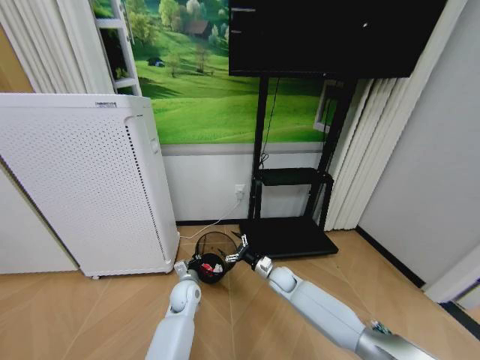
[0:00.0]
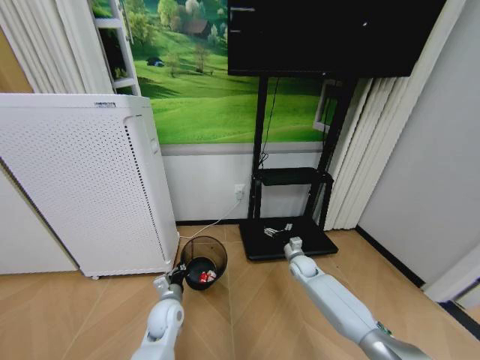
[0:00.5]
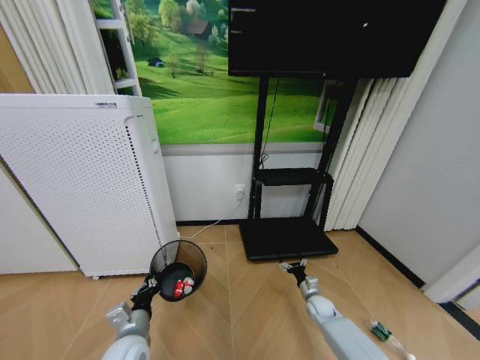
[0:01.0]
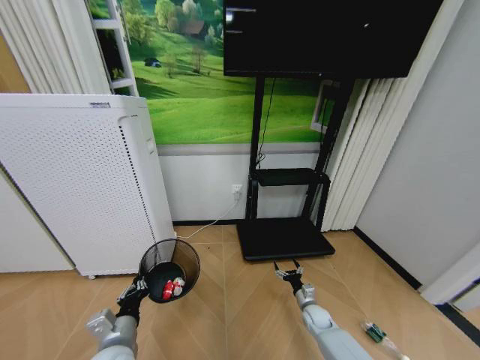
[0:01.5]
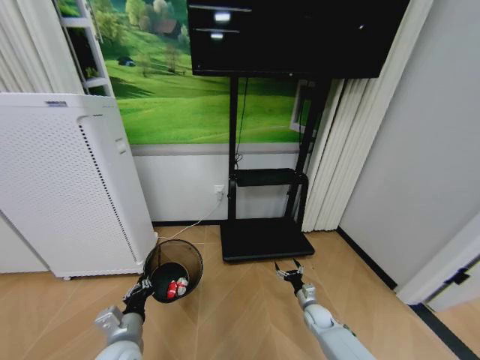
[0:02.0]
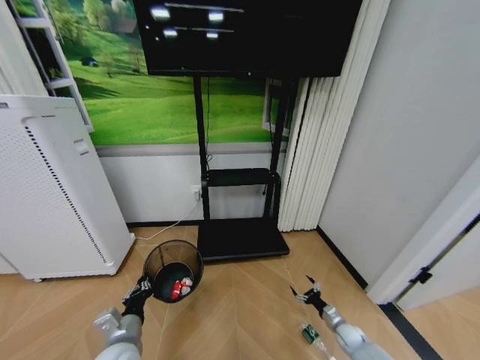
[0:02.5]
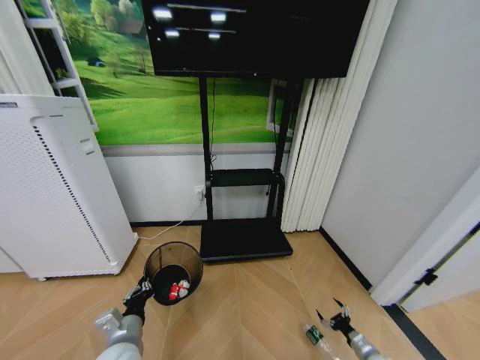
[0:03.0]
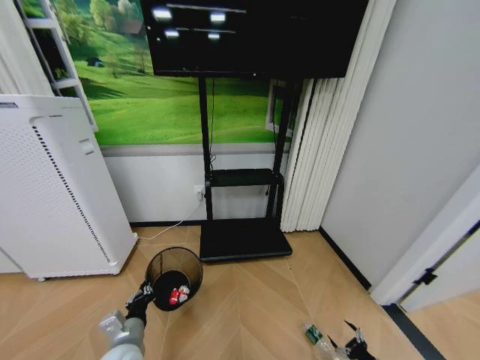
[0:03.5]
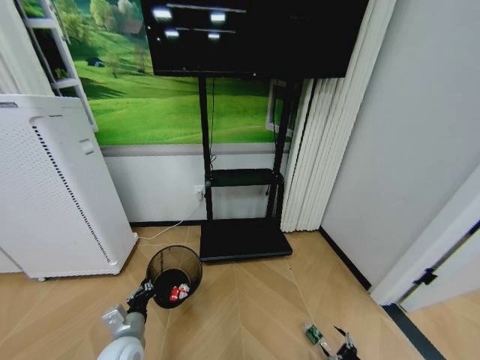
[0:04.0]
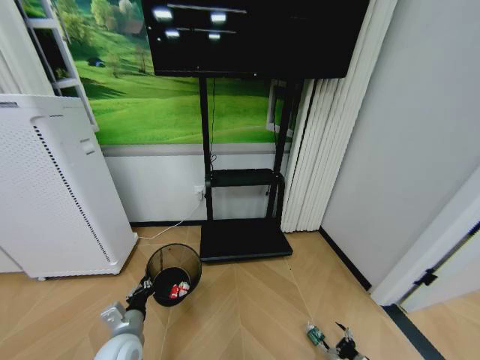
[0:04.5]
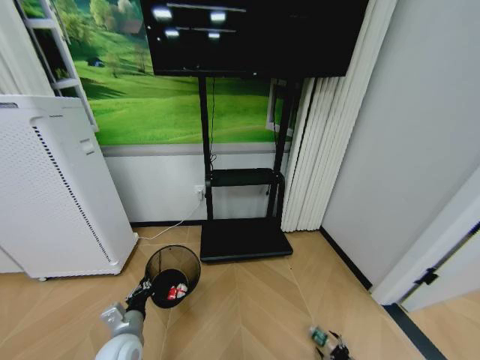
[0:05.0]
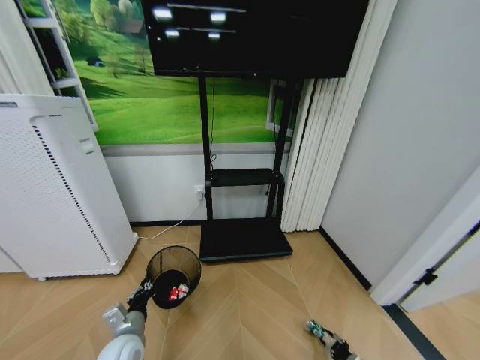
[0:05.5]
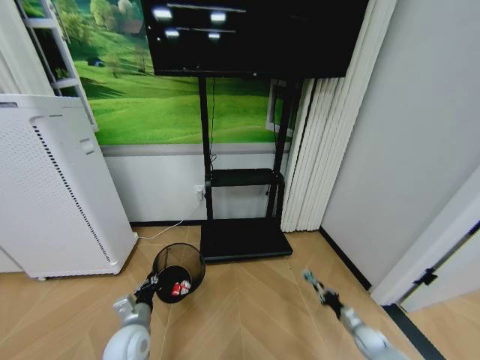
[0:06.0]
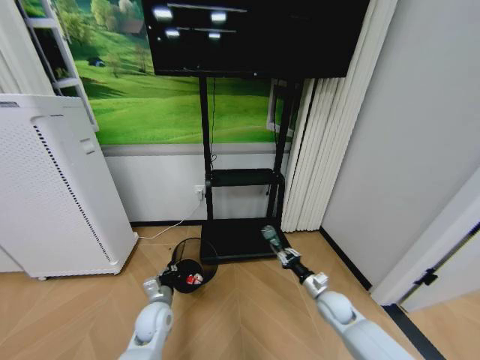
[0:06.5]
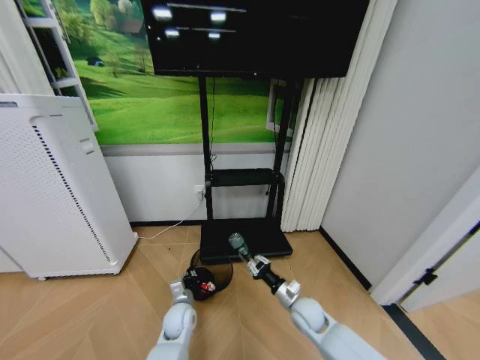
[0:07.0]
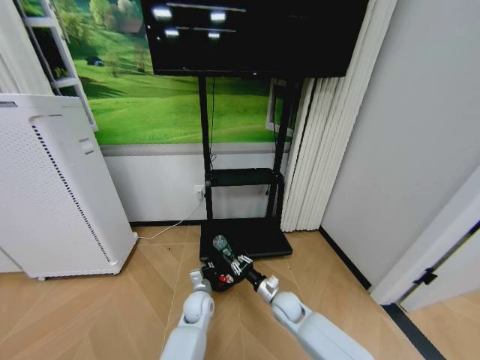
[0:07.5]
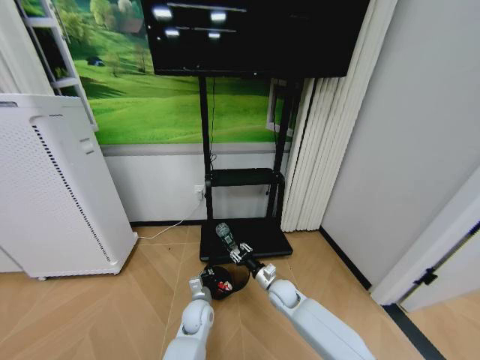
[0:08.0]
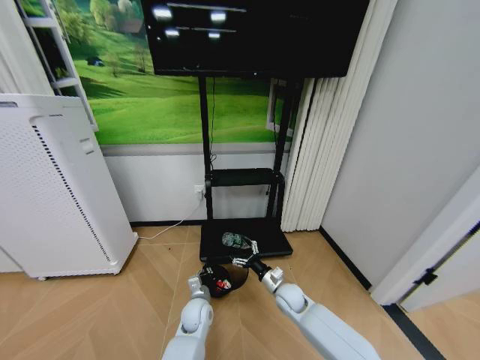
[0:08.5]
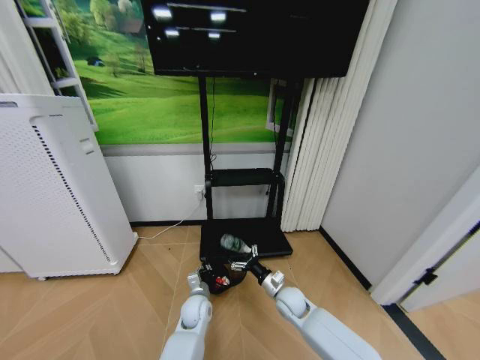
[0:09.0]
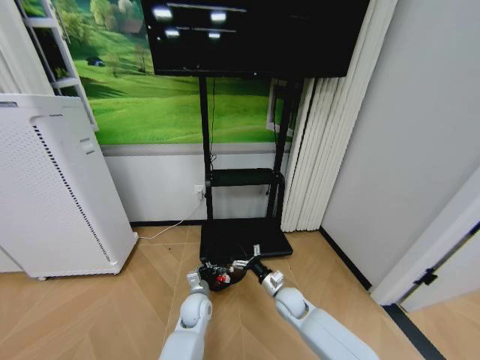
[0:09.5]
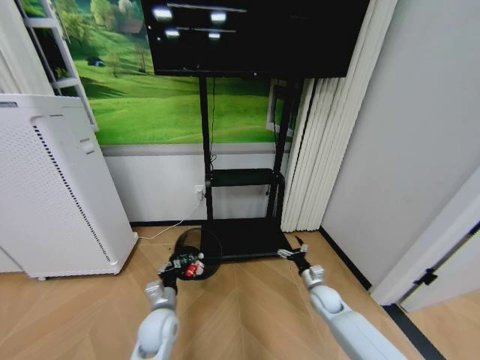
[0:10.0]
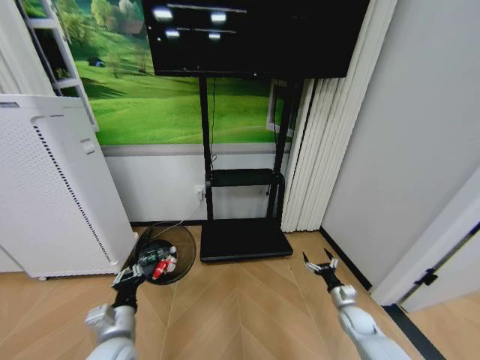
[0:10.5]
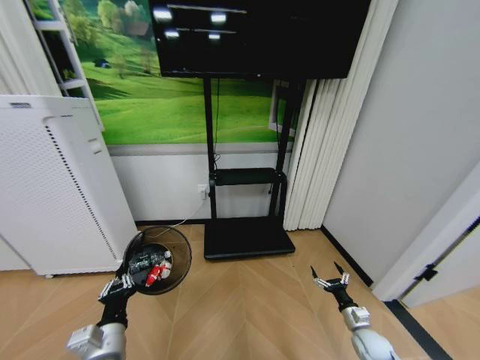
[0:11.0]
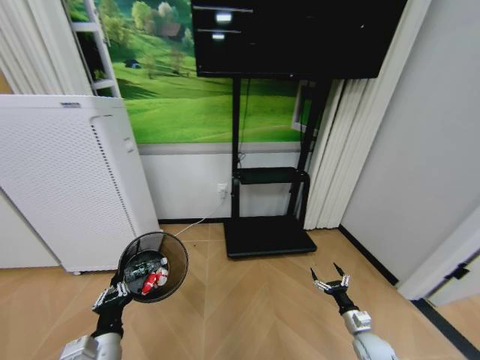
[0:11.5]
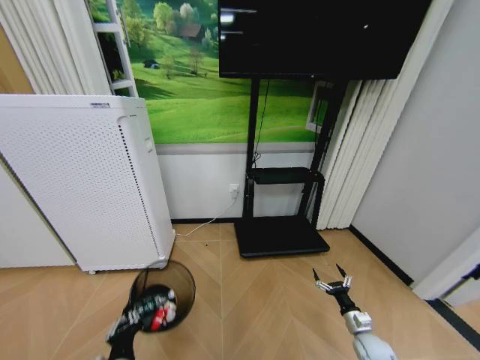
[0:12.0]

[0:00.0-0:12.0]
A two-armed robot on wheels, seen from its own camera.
Task of the whole recording: Pick up the trash bin and place the garbage on the floor into it.
0:00.0 to 0:02.0: The left gripper moves backward, to the left and upward, about 25 cm; the right gripper heads to the right, downward and backward, covering approximately 20 cm.
0:02.0 to 0:04.0: The right gripper goes roughly 30 cm backward and to the right.
0:04.0 to 0:06.0: The right gripper travels forward by some 15 cm, and closes its fingers.
0:06.0 to 0:08.0: The left gripper moves to the right, forward and downward, about 20 cm. Meanwhile the right gripper moves to the left and upward, approximately 35 cm.
0:08.0 to 0:10.0: The left gripper heads to the left, upward and backward, covering about 15 cm, while the right gripper shifts about 15 cm to the right, and opens up.
0:10.0 to 0:12.0: The right gripper is displaced to the right, backward and downward by roughly 20 cm; the left gripper is displaced backward by some 15 cm.

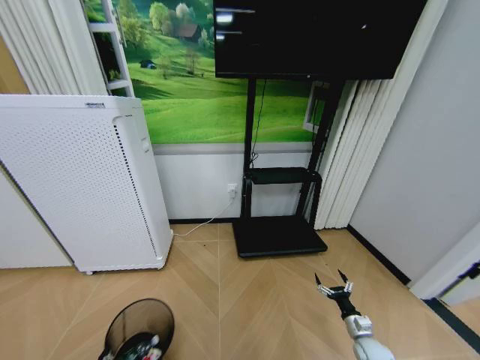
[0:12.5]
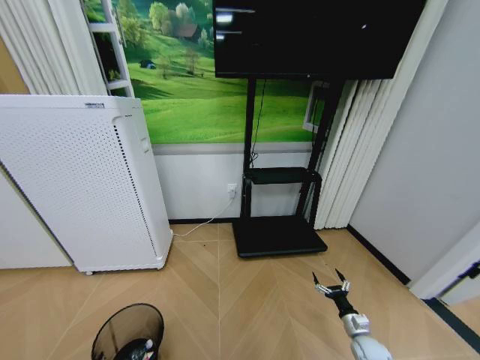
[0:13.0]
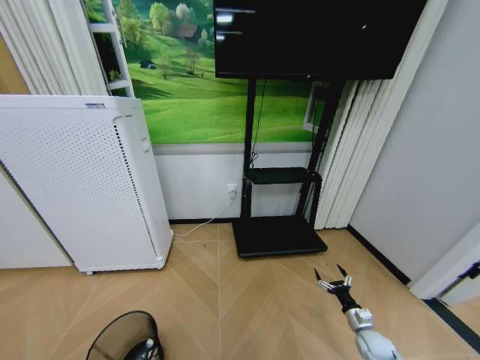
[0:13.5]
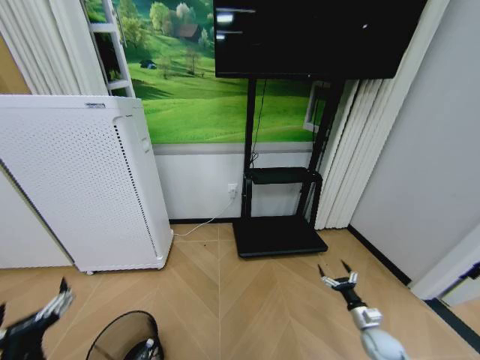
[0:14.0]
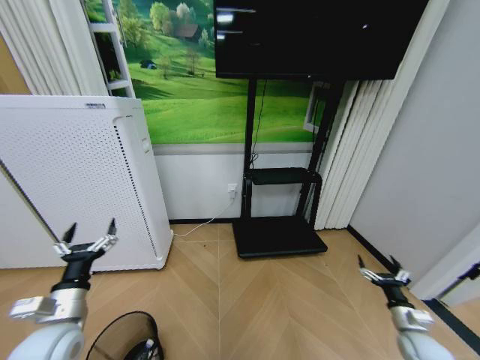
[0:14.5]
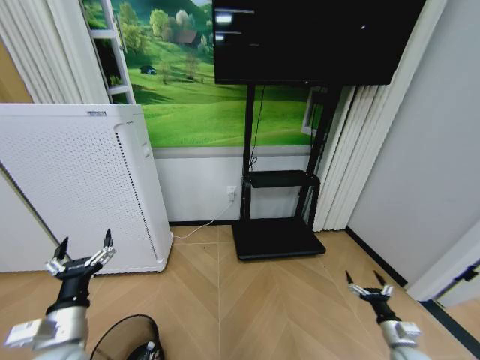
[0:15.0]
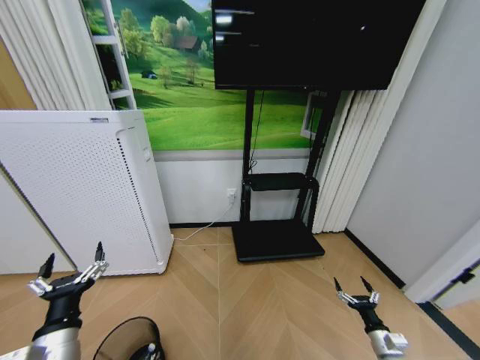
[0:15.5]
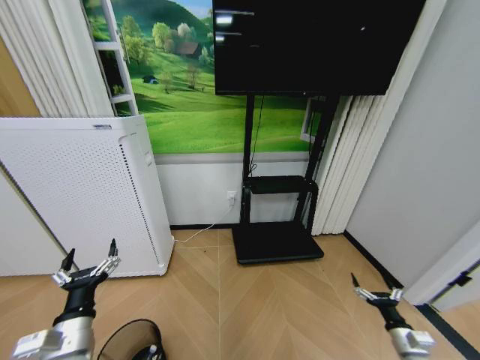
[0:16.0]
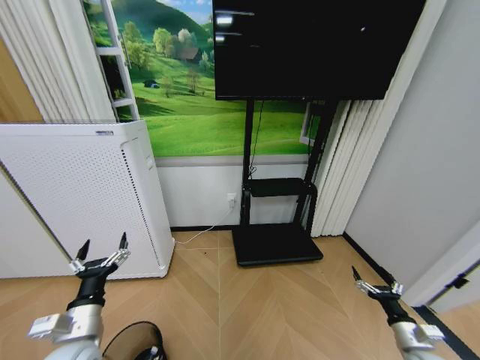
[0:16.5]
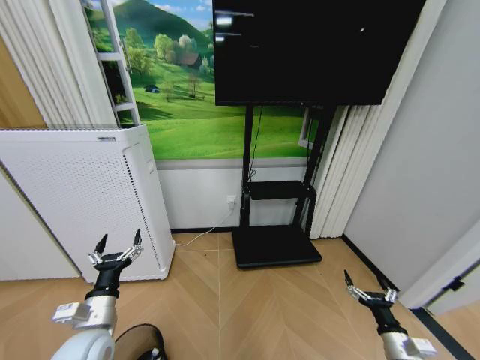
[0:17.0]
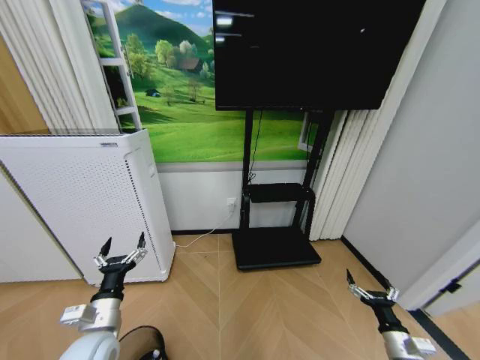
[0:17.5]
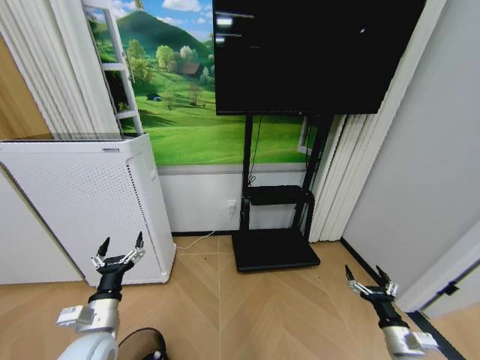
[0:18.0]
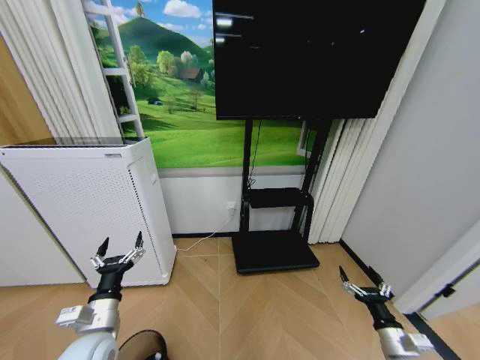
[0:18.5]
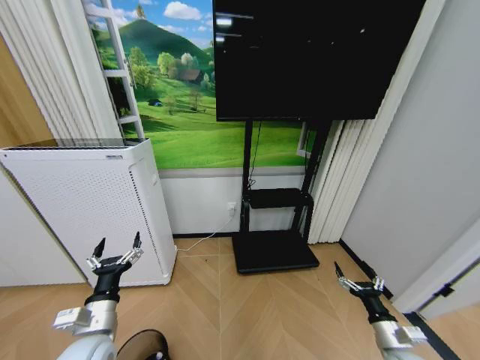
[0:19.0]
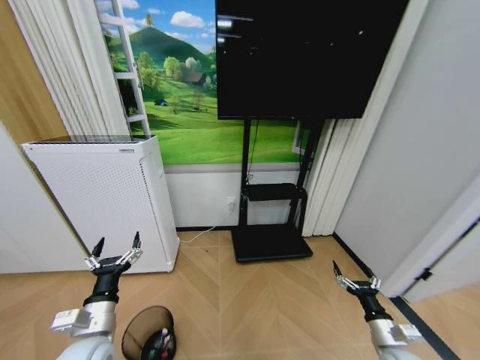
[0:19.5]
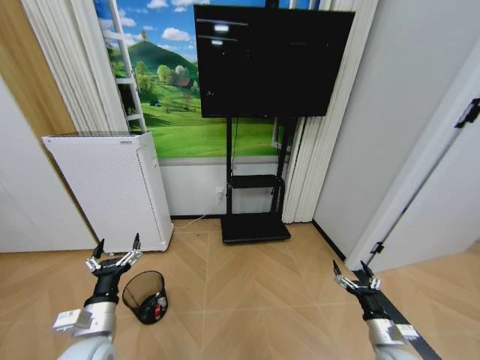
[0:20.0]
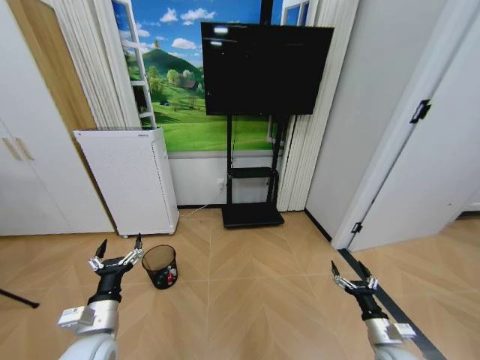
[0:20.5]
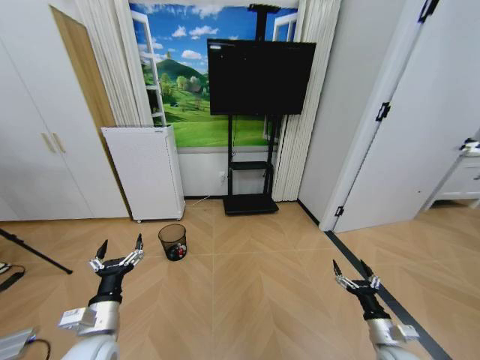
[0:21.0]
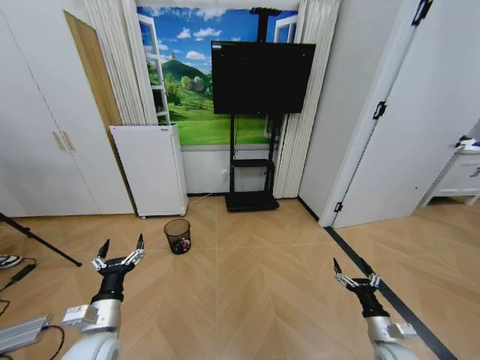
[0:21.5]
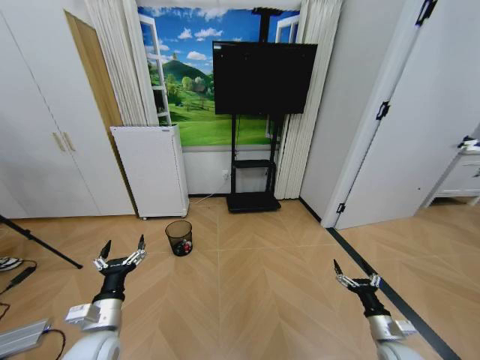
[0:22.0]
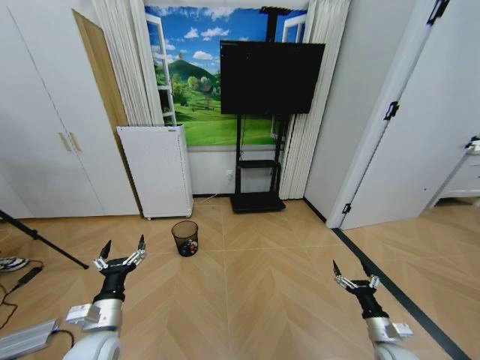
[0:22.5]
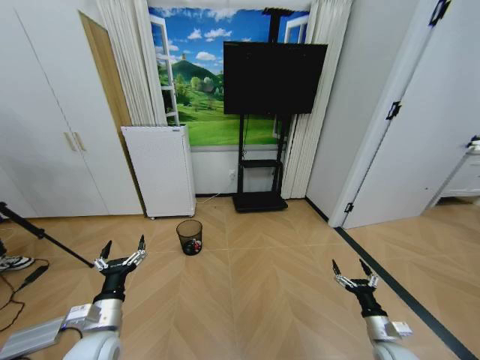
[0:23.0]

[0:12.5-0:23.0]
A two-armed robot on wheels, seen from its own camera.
Task of the whole recording: Pick up the trash bin and place the garbage on the floor into it.
0:12.5 to 0:14.5: The right gripper moves upward and to the right, about 15 cm. The left gripper travels upward and forward by some 20 cm, and opens its fingers.
0:16.5 to 0:19.0: The right gripper shifts approximately 5 cm to the left.

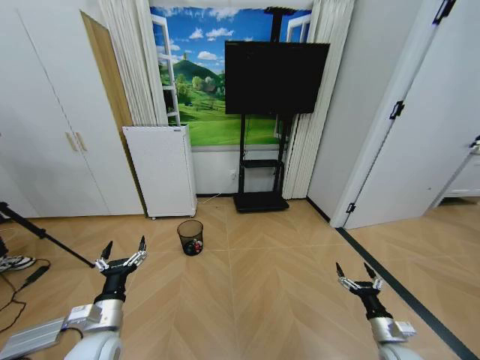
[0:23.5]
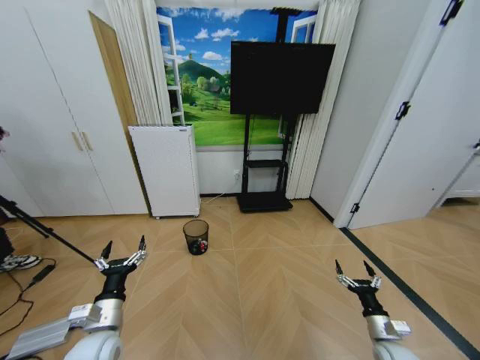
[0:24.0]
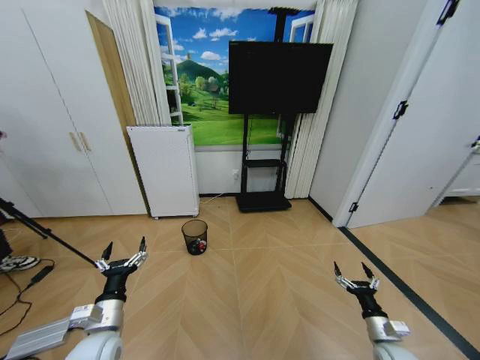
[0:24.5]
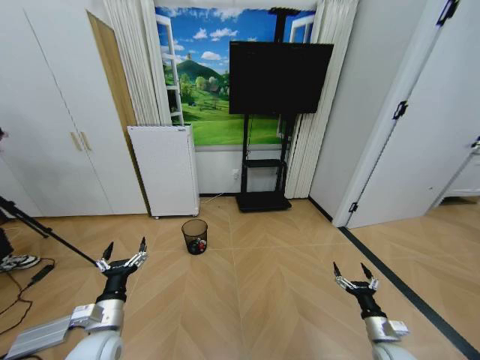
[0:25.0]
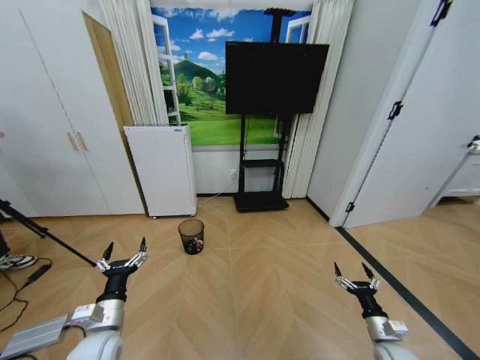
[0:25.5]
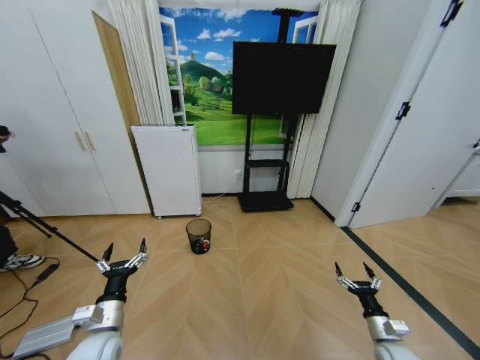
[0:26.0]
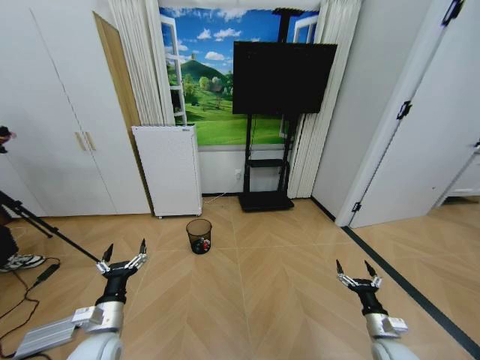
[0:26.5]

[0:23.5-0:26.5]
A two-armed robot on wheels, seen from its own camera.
Task of the whole recording: Pick up the trash bin and place the garbage on the floor into it.
0:23.5 to 0:25.0: There are only small adjustments of the grippers.
0:25.0 to 0:26.5: The two grippers keep their place.
